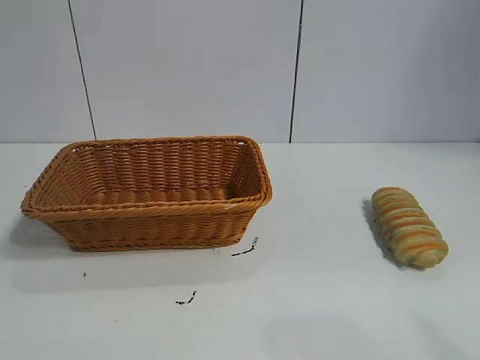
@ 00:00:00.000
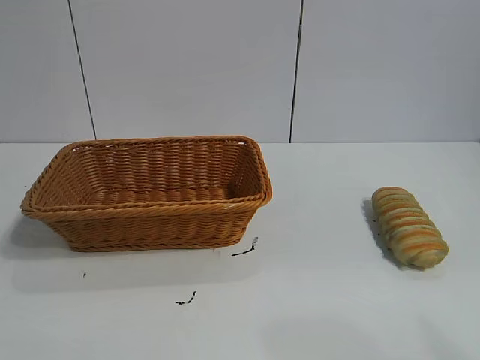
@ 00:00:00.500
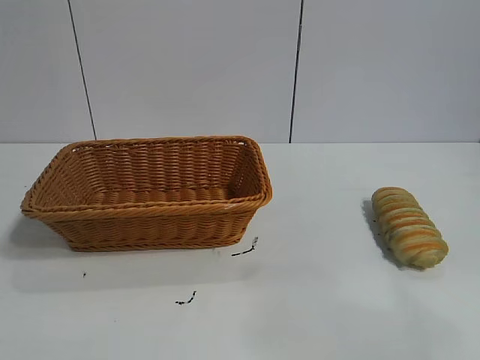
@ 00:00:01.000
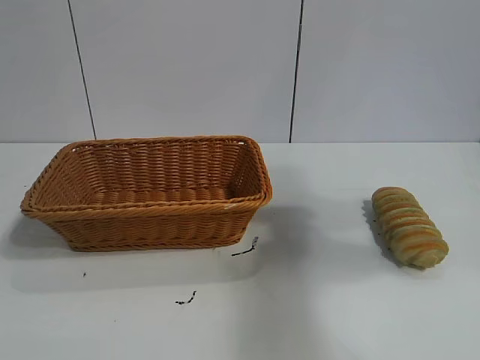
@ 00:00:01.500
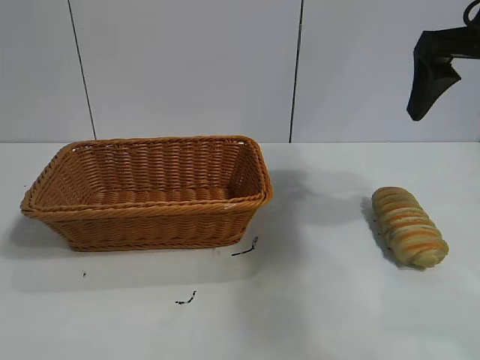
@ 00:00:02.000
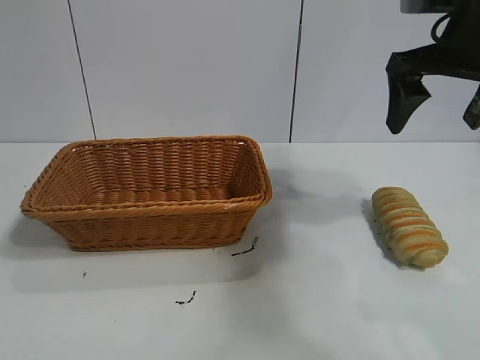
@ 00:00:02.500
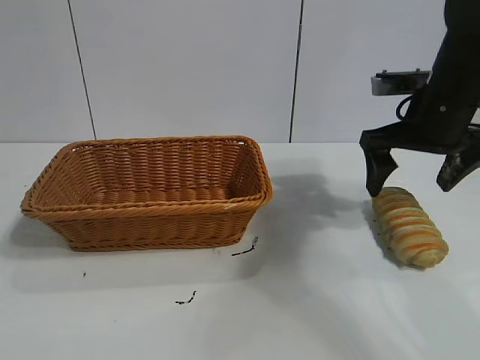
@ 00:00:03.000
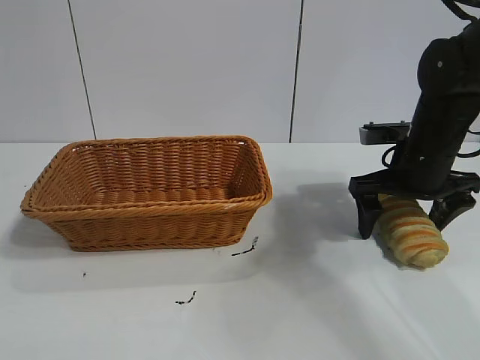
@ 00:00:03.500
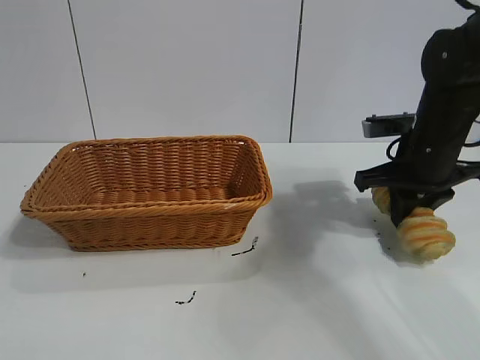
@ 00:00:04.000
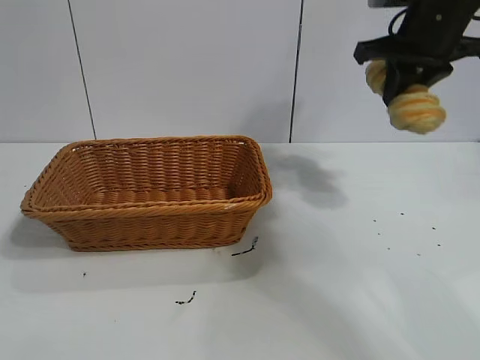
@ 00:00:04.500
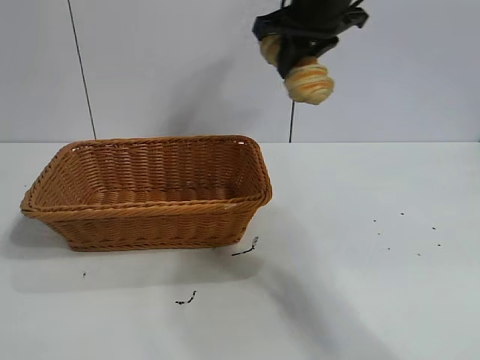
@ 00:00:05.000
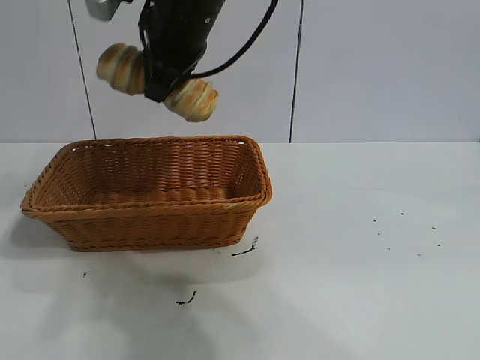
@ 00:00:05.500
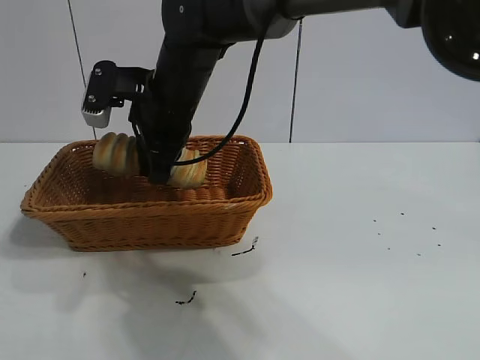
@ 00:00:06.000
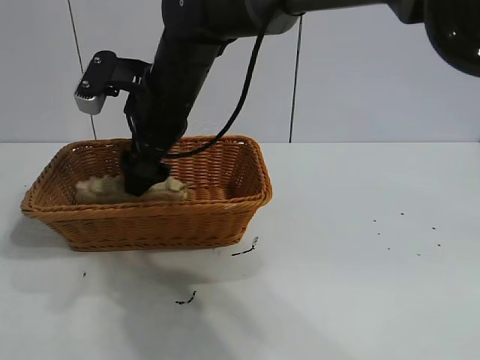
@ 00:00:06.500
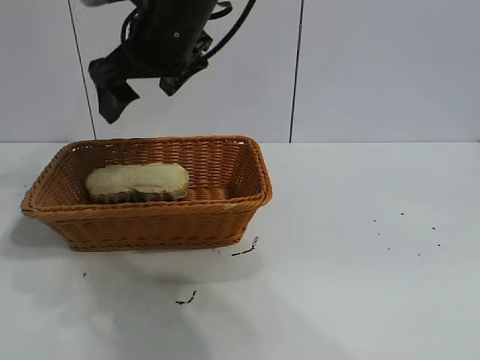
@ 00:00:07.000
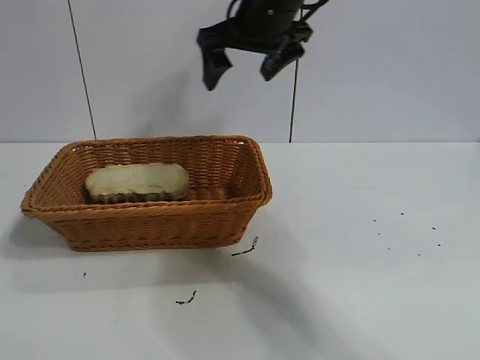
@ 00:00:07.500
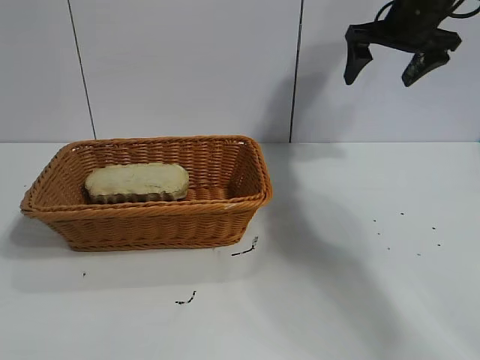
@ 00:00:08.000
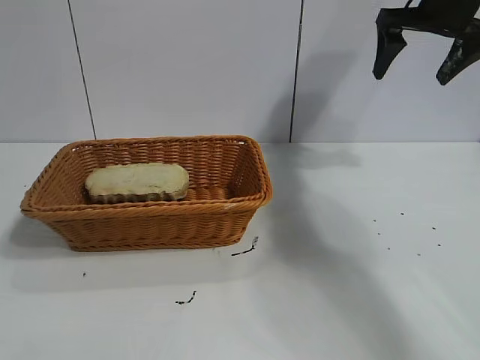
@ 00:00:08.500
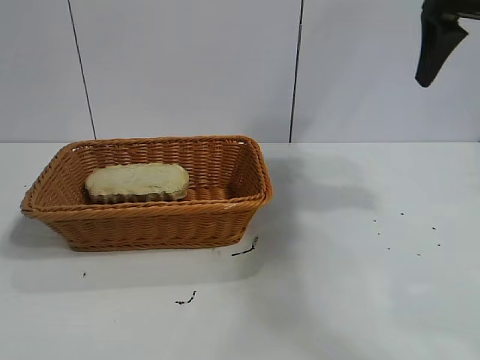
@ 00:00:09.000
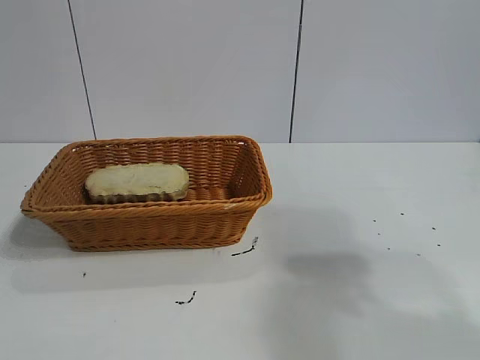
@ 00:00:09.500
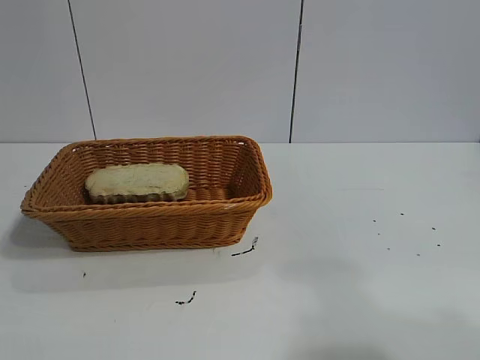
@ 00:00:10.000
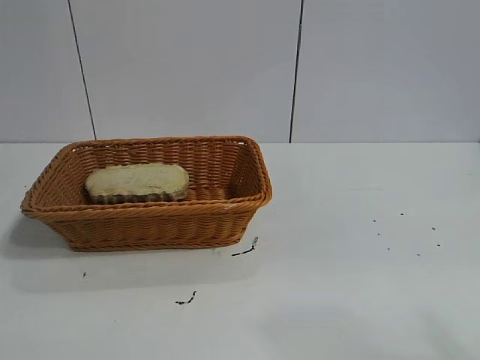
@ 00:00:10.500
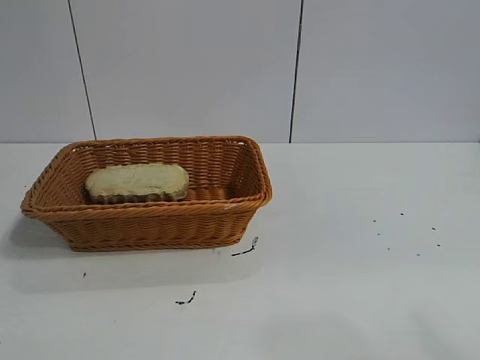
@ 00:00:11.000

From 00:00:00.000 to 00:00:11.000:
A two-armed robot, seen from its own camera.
Task of the whole recording: pick up the long bread and put it into the basket.
Step, from 00:00:02.000 to 00:00:03.500: Grasp the long bread with right gripper.
Step, from 00:00:04.500 to 00:00:07.000: Place the long bread in the basket with right gripper.
